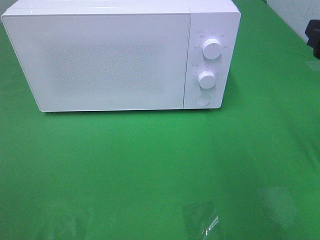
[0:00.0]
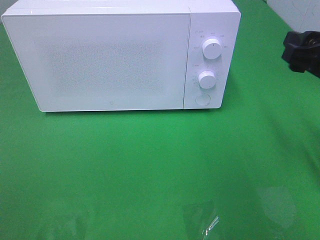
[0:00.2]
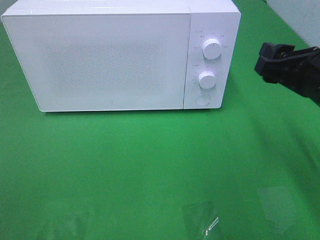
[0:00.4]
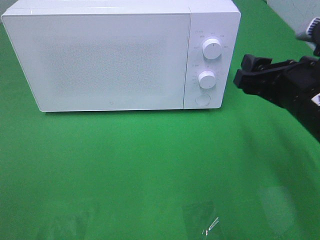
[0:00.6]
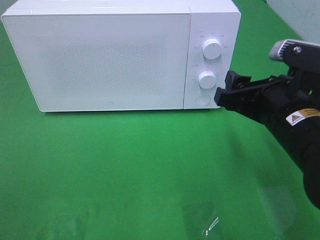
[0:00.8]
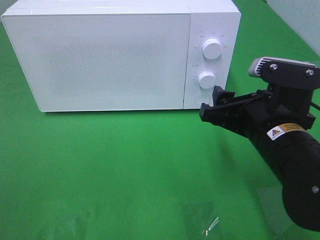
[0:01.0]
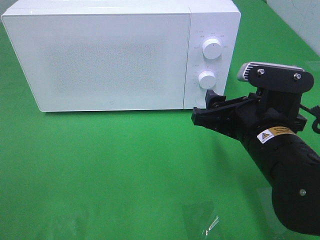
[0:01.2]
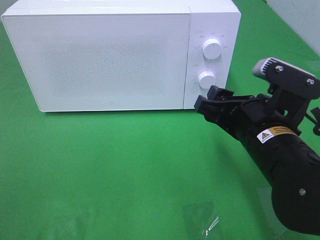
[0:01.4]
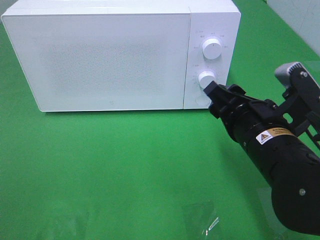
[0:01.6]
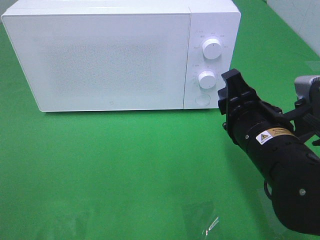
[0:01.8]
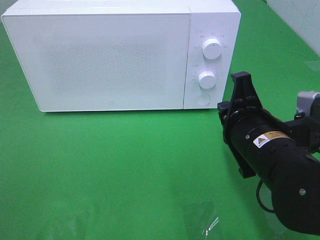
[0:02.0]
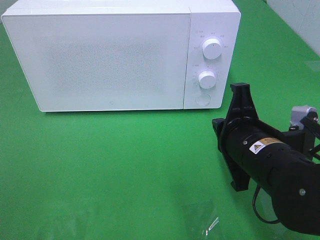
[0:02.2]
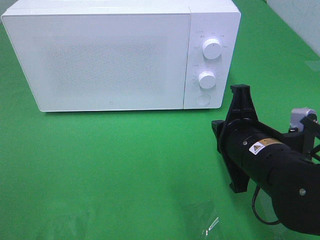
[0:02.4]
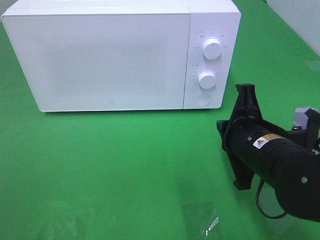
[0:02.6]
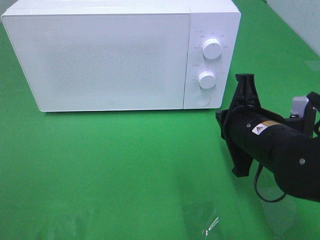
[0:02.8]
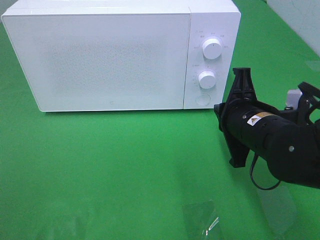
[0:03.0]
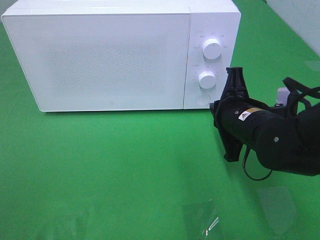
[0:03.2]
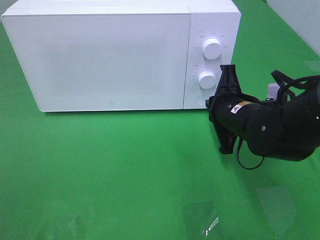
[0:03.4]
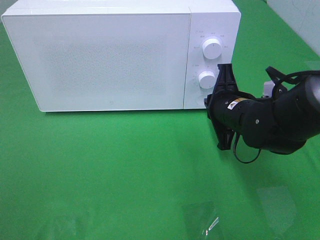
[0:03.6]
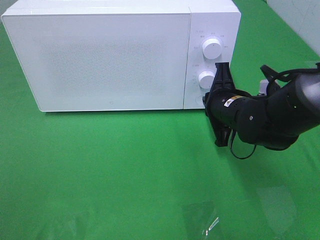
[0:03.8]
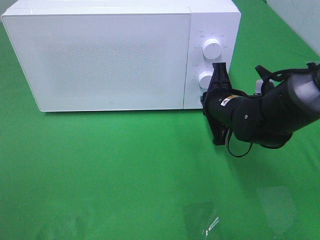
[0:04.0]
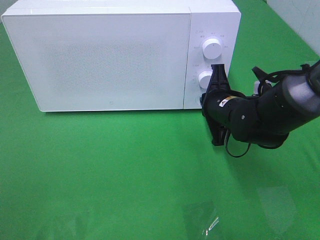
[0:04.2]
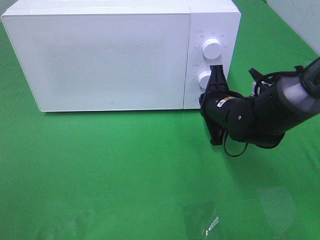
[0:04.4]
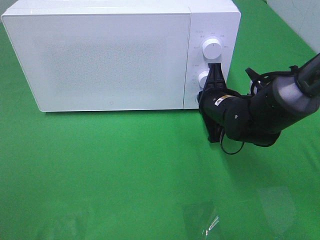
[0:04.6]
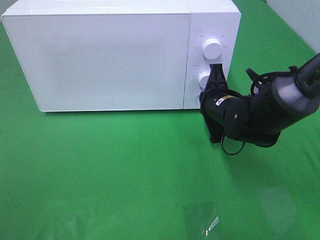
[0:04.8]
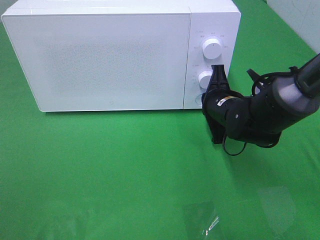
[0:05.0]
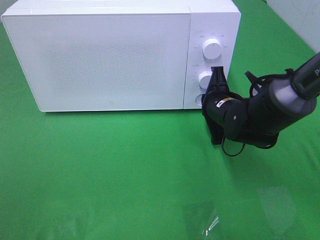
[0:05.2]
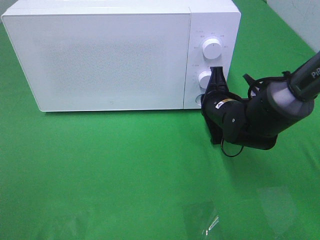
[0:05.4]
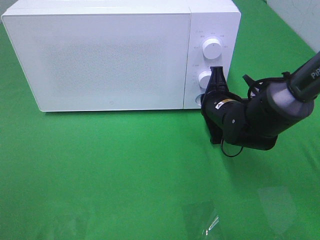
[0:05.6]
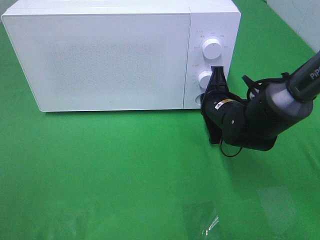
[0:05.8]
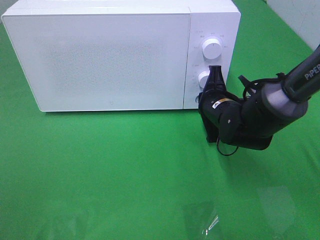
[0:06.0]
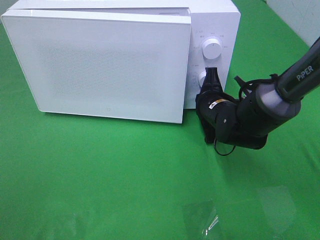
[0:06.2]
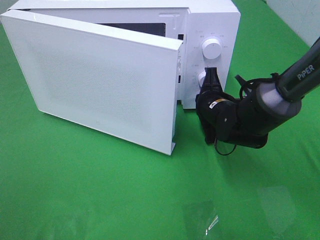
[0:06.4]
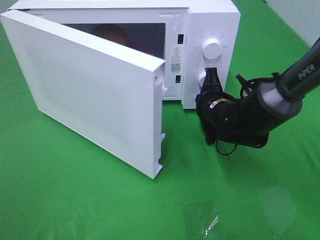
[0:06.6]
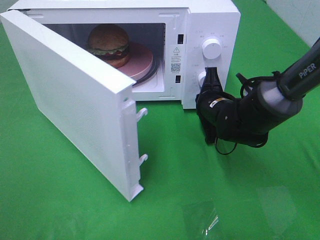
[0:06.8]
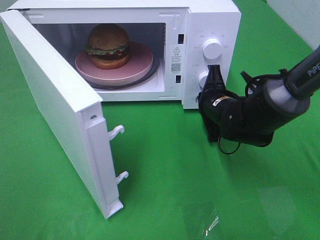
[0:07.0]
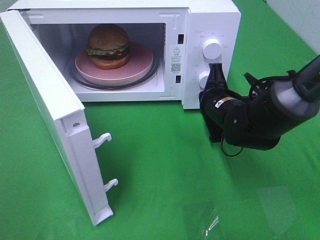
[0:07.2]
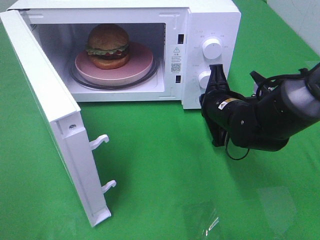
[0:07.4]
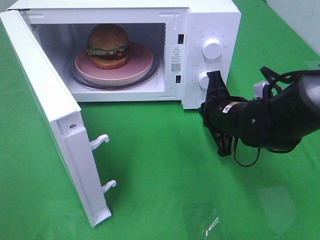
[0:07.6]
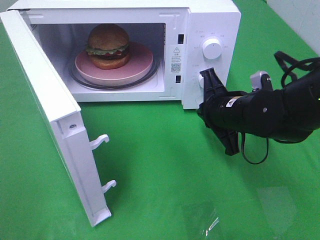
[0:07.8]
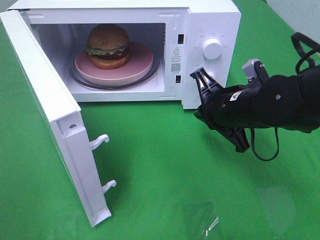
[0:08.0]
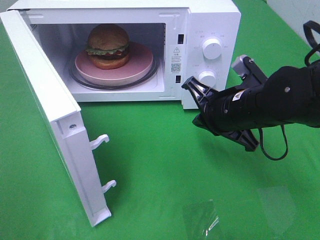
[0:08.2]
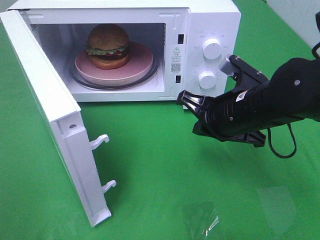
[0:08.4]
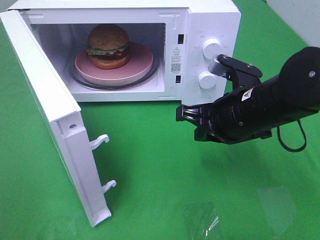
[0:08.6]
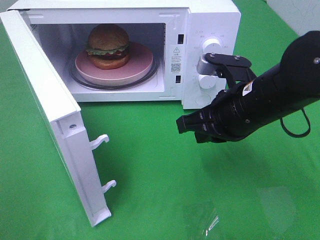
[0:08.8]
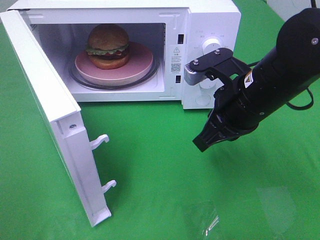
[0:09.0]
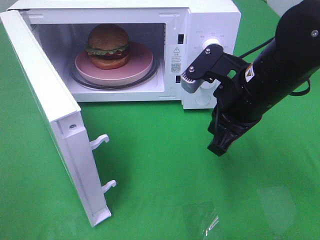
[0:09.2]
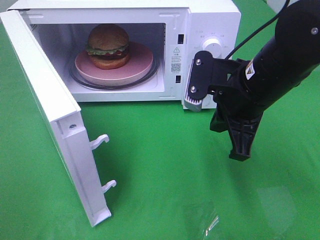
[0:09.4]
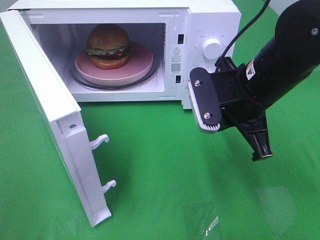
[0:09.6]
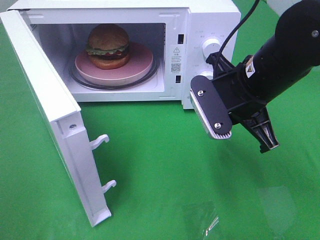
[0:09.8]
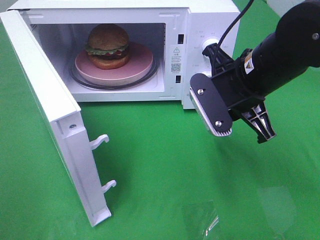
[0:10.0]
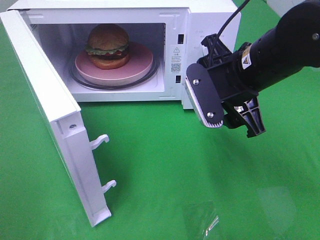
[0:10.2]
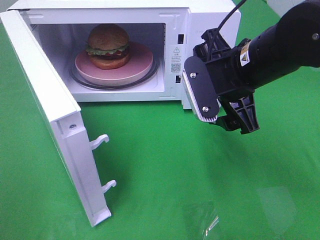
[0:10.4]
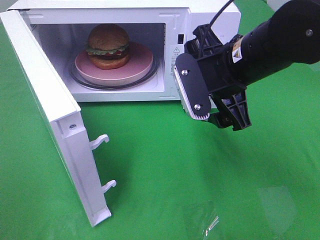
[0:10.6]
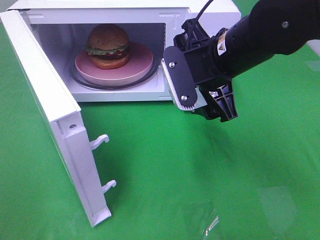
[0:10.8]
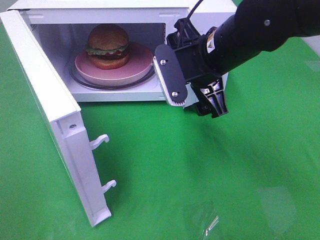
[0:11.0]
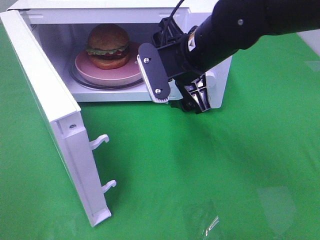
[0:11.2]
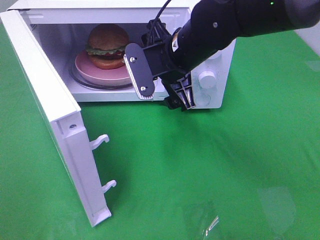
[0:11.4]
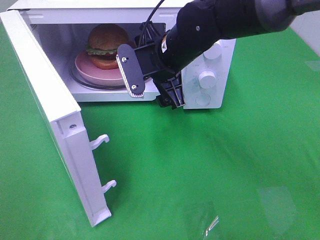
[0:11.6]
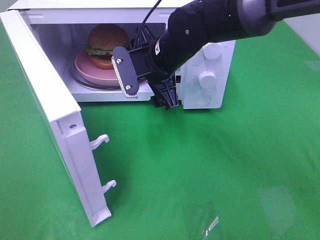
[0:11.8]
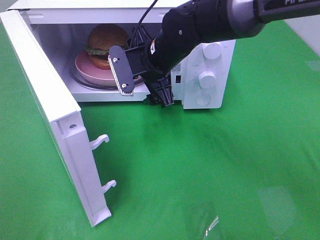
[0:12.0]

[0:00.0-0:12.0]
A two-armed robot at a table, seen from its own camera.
Task of the whole recording: Heat the burger.
Step, 0:00.0 to 0:07.2: Right hand: press the switch.
0:00.0 to 0:01.6: The right gripper moves to the left and downward, roughly 15 cm.
0:01.6 to 0:03.0: The right gripper closes.
0:03.0 to 0:04.4: The right gripper travels forward by about 10 cm.
0:04.4 to 0:06.0: The grippers stay close to where they were, moving slightly.
0:07.6 to 0:09.0: The right gripper heads upward, covering roughly 10 cm.
0:09.0 to 0:10.4: The right gripper opens.
0:10.4 to 0:12.0: The right gripper shifts approximately 15 cm to the left and forward.

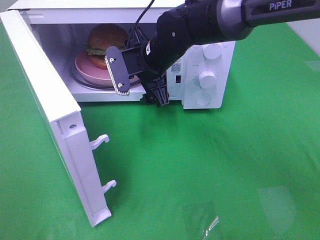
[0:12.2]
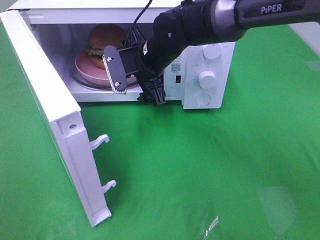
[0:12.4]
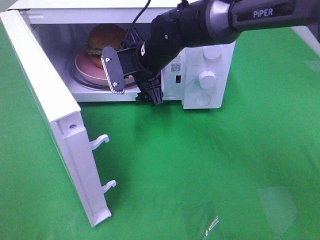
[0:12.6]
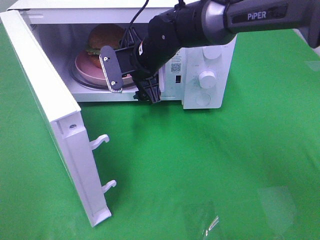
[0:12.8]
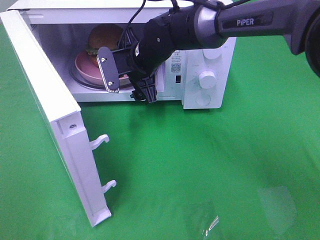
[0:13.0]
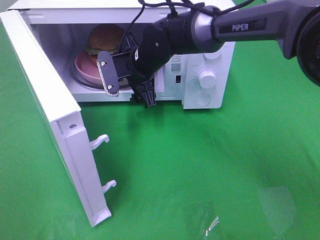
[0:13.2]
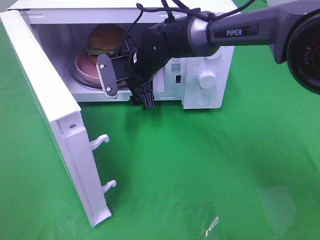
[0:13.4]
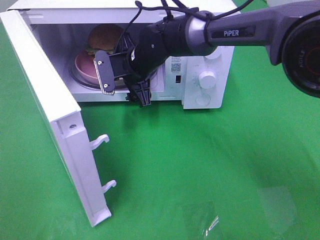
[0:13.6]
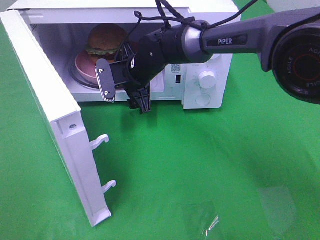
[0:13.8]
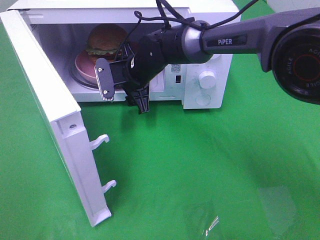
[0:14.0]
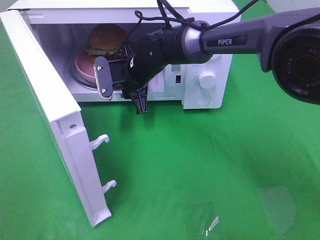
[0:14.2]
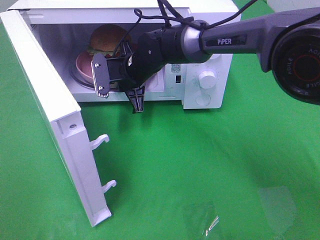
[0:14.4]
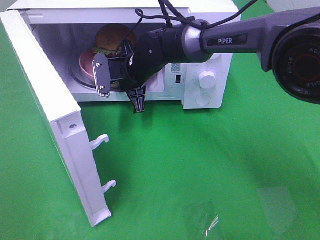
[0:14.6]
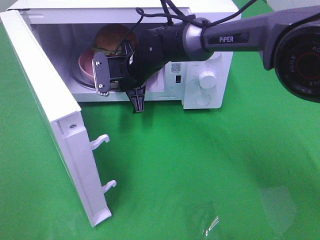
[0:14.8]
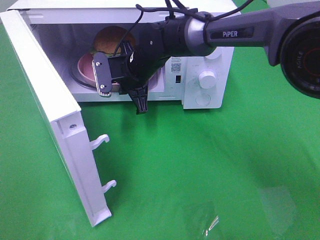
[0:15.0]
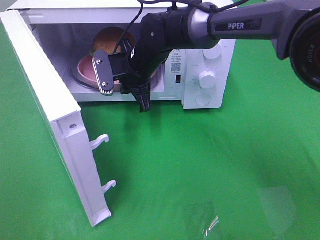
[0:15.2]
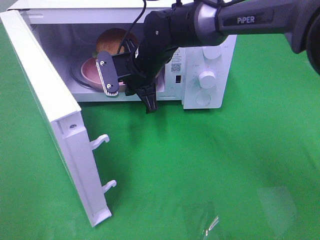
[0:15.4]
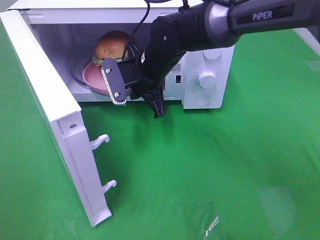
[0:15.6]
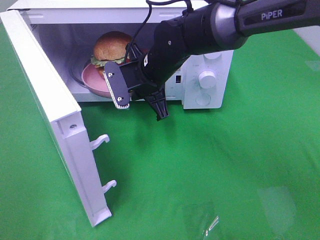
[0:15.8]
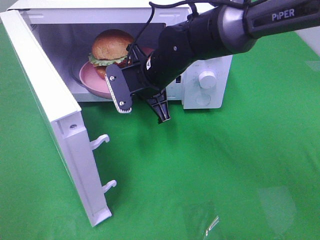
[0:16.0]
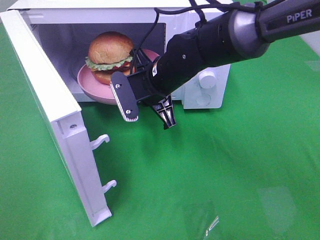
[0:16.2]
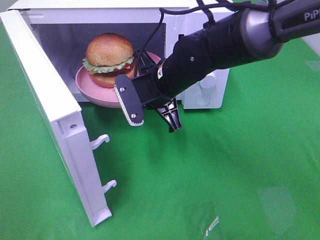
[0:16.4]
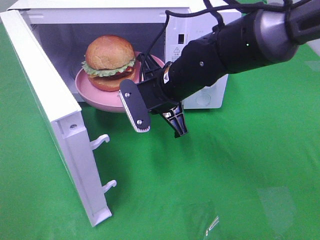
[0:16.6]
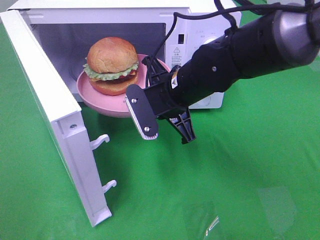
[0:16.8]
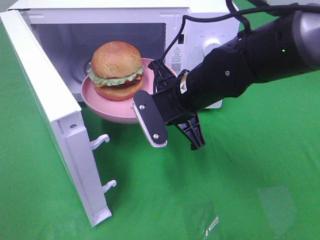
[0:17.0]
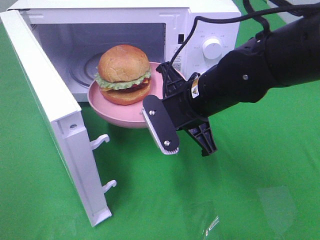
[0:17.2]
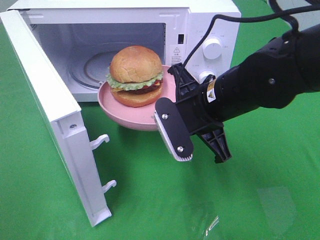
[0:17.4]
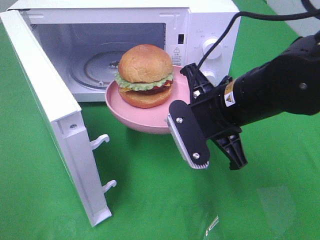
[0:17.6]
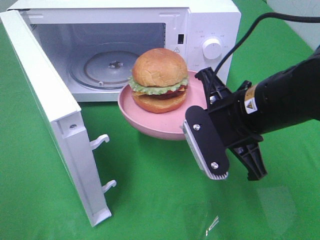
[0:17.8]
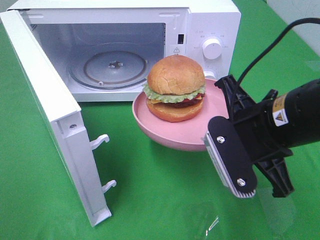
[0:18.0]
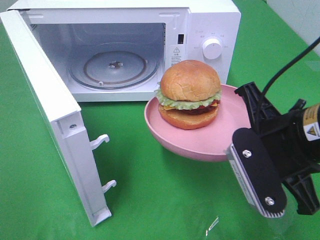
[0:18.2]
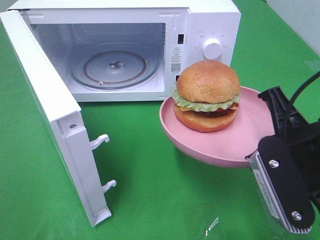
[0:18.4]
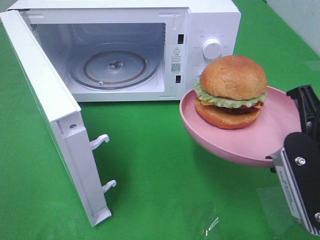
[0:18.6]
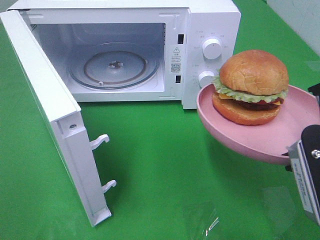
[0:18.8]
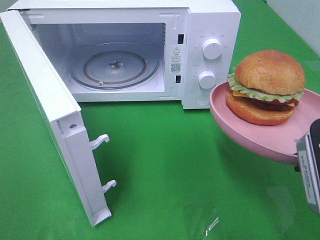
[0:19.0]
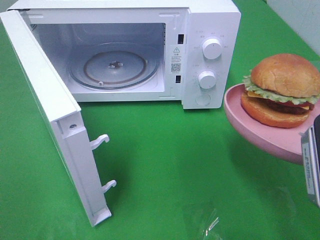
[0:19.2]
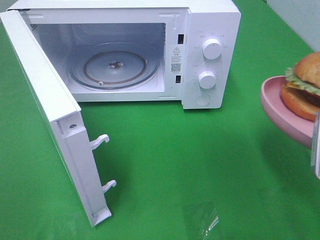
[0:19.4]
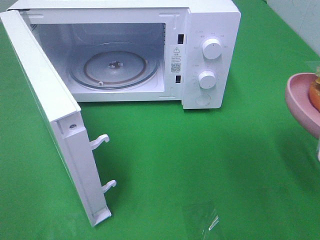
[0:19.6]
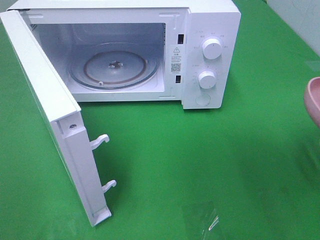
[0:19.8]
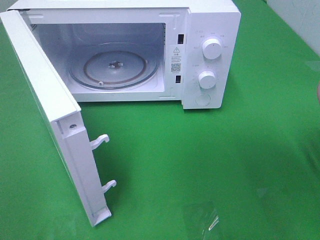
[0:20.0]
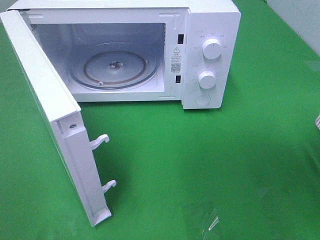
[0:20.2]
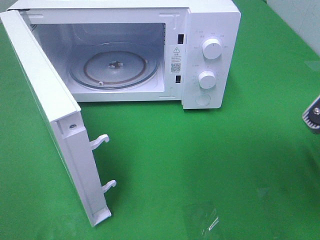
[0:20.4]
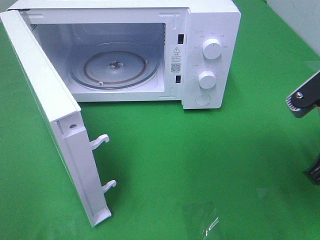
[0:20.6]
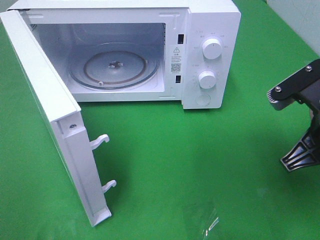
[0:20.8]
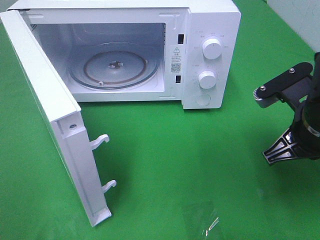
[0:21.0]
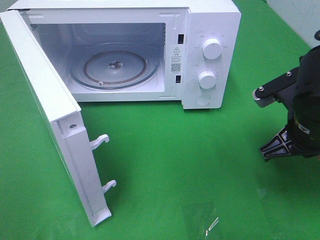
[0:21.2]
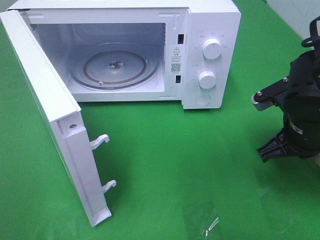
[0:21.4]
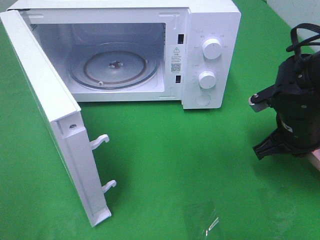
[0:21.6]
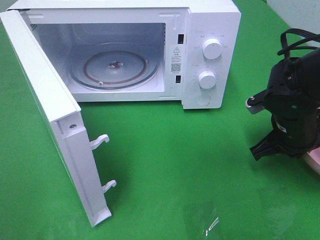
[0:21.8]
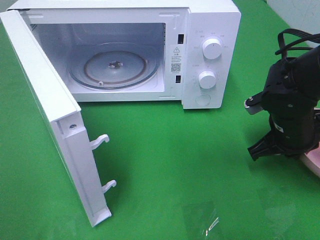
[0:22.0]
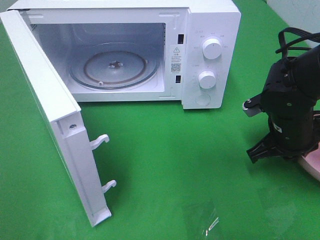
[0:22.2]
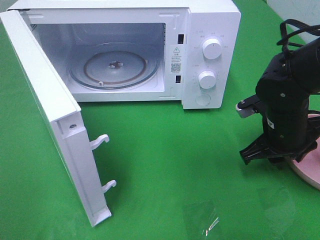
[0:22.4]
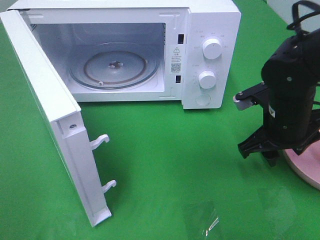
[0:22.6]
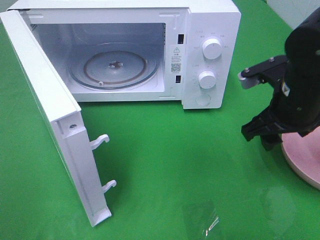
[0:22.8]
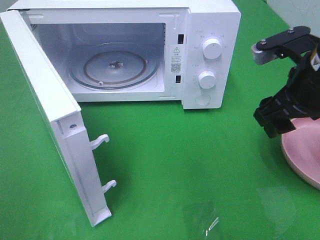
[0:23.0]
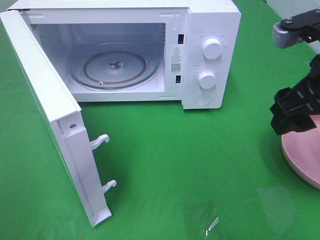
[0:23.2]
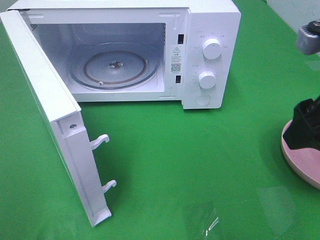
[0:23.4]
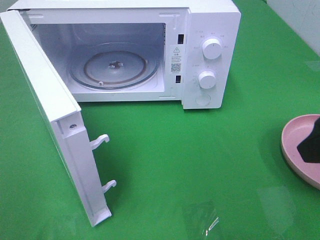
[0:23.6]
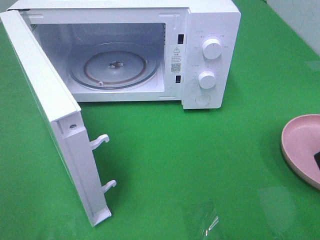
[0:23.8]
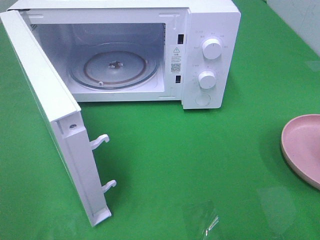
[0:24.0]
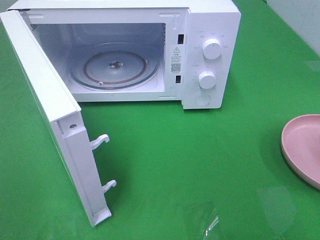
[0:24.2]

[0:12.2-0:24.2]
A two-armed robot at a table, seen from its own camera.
Task of the whole recording: Heat the burger.
Step, 0:12.2 to 0:14.4: Right hand: grab the plate with the hamburger.
Step, 0:14.6 to 0:22.2: Right hand: place the plate on the table.
0:12.2 to 0:13.8: The right gripper moves downward, about 5 cm.
0:13.8 to 0:15.2: The right gripper closes up.
0:15.2 to 0:16.6: The right gripper shifts roughly 10 cm backward and to the right.
0:16.6 to 0:18.2: The right gripper is displaced backward and to the right by about 20 cm.
0:18.2 to 0:19.8: The right gripper heads to the right, covering approximately 10 cm.
0:19.8 to 0:21.2: The right gripper travels forward and downward by about 15 cm.
0:21.2 to 0:22.6: The right gripper changes place by roughly 5 cm, and opens up.
0:22.6 to 0:24.2: The right gripper is displaced backward and upward by roughly 25 cm.
